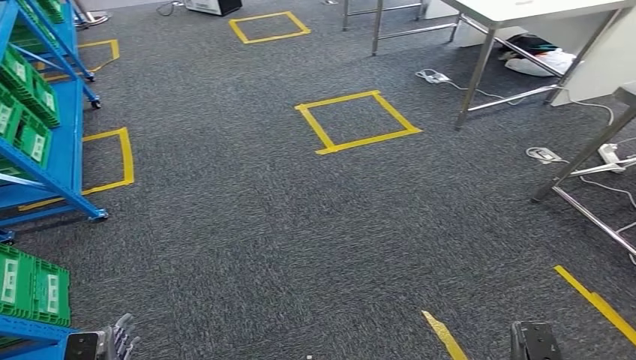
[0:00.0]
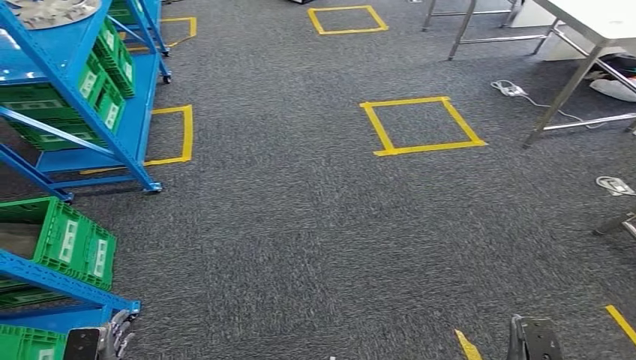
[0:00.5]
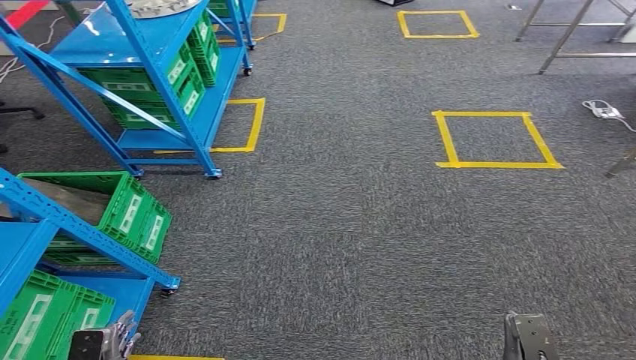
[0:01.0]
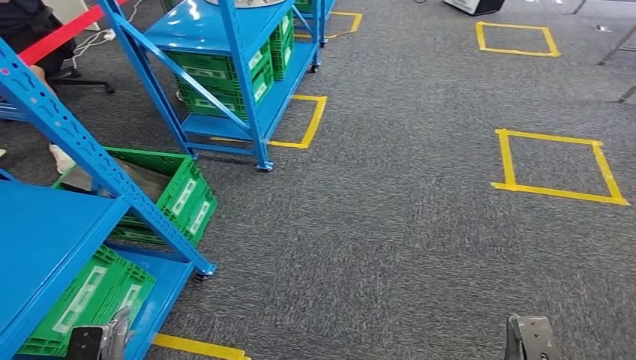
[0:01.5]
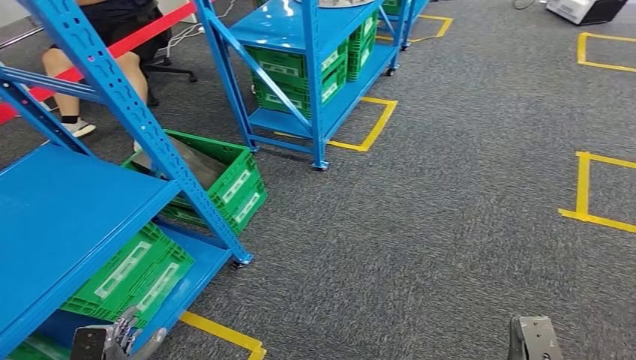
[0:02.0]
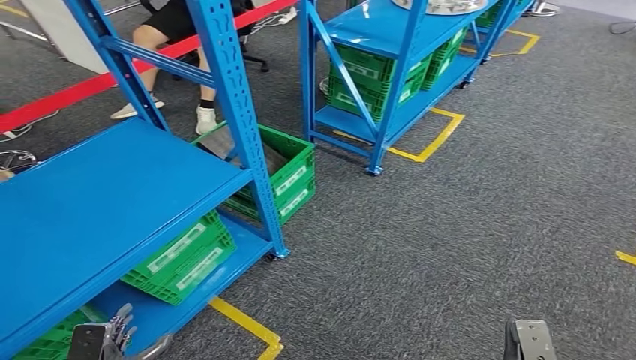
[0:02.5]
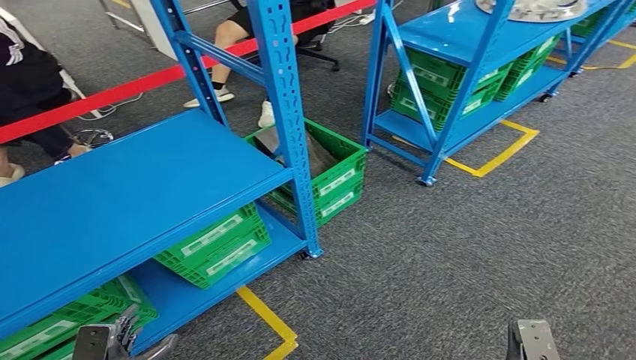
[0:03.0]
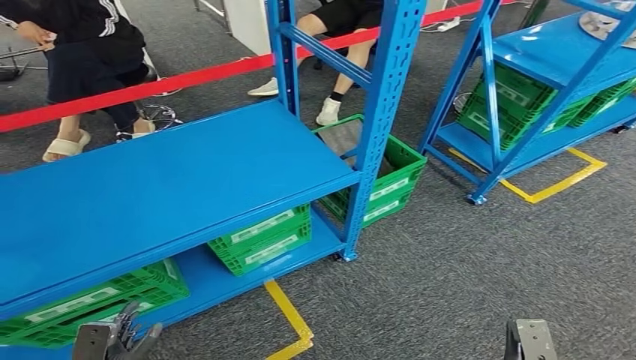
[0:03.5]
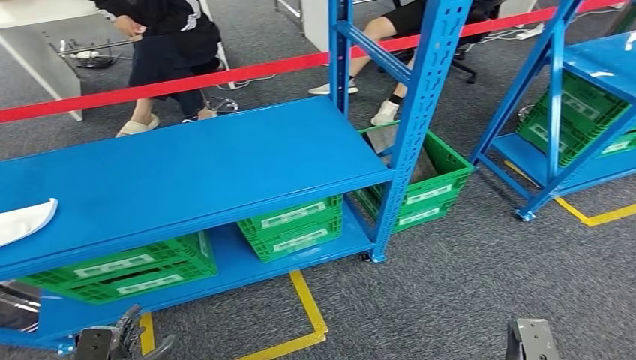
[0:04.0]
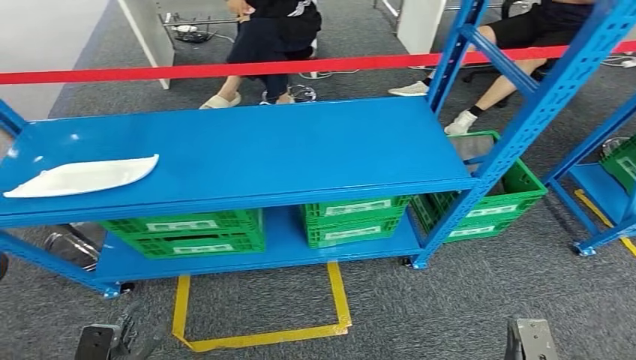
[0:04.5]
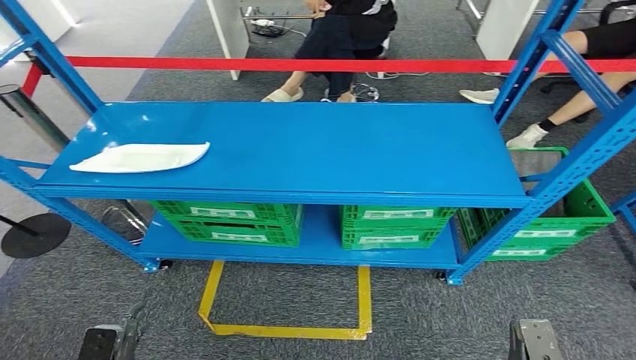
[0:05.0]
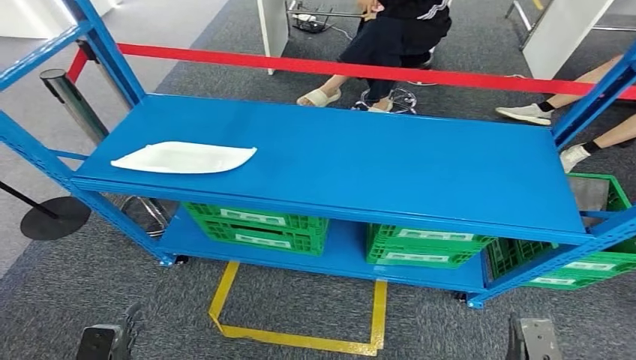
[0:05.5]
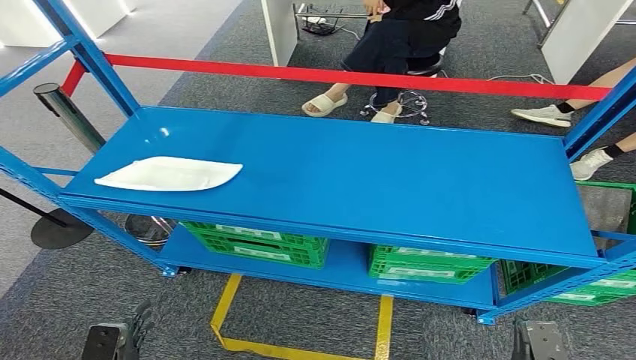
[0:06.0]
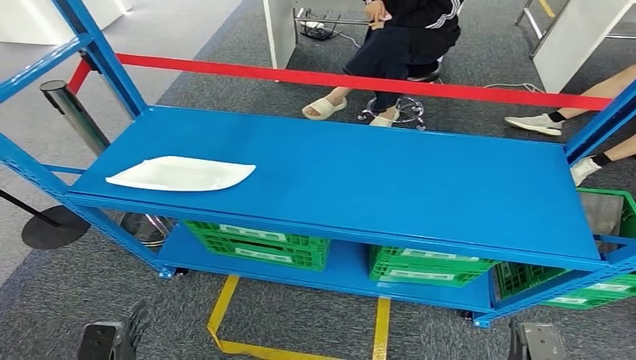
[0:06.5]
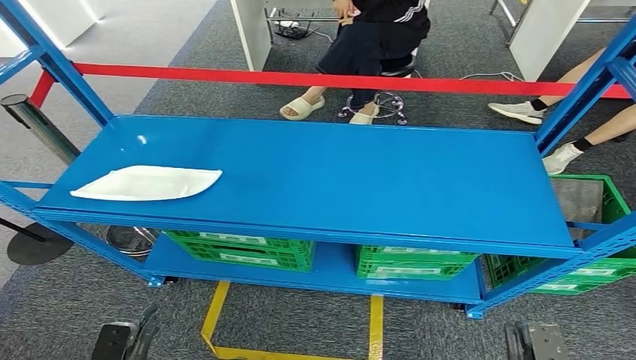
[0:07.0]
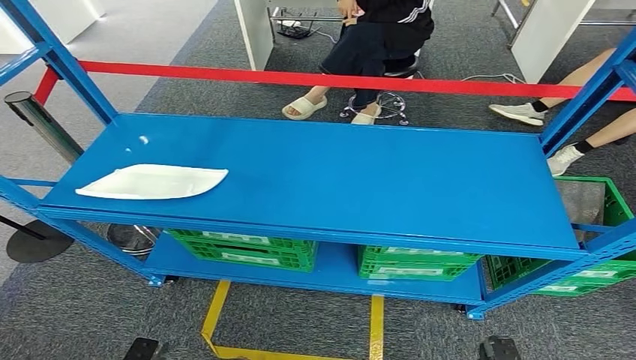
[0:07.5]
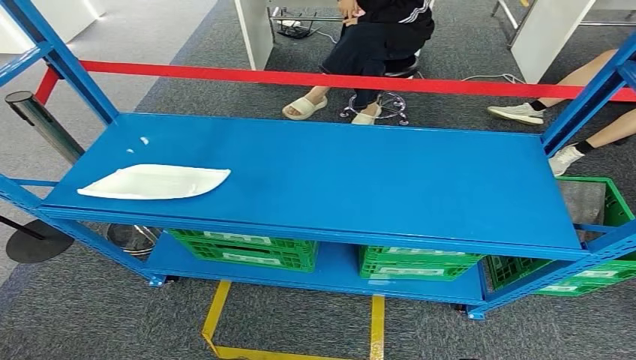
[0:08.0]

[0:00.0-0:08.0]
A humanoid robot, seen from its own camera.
Step, 0:00.0 to 0:08.0: Return to the initial position at the workbench.
